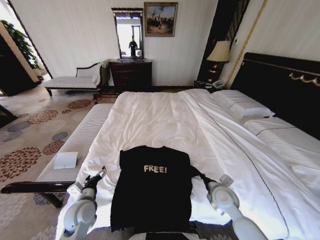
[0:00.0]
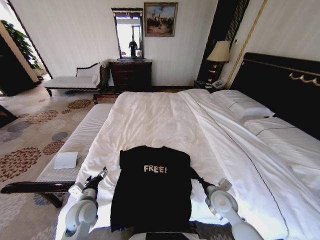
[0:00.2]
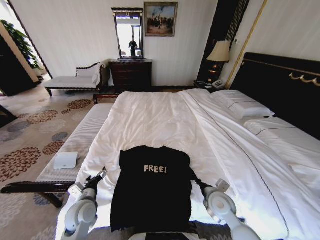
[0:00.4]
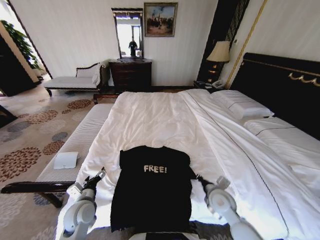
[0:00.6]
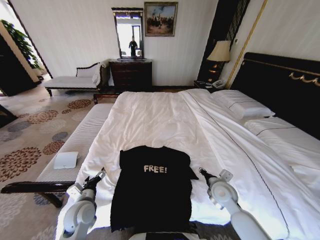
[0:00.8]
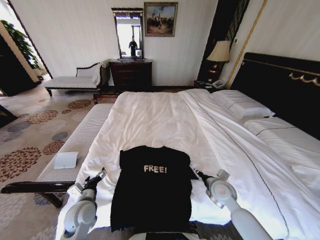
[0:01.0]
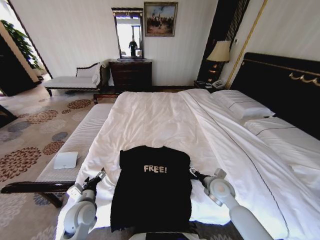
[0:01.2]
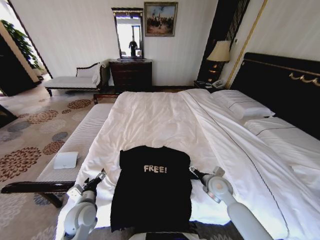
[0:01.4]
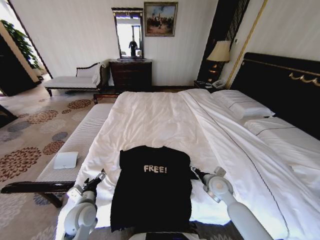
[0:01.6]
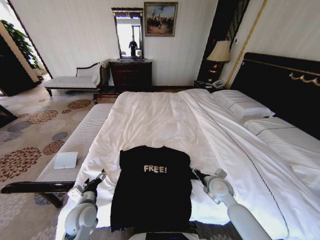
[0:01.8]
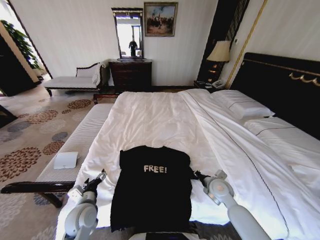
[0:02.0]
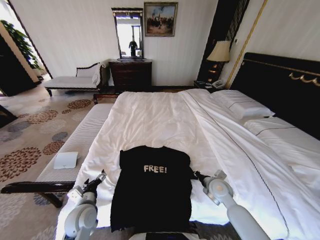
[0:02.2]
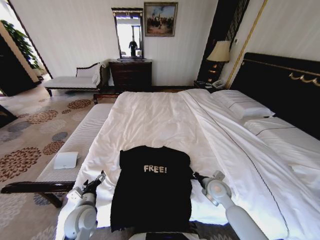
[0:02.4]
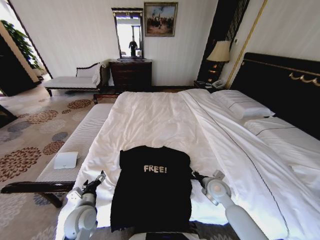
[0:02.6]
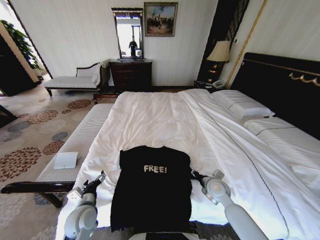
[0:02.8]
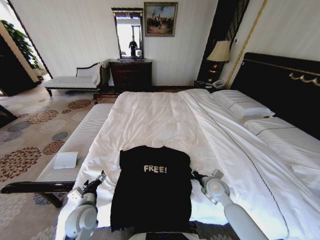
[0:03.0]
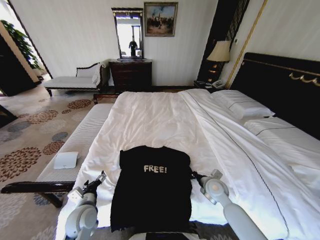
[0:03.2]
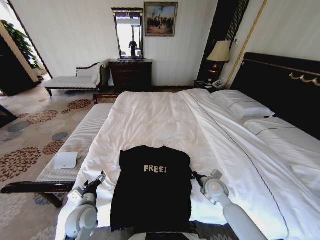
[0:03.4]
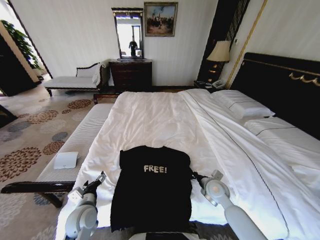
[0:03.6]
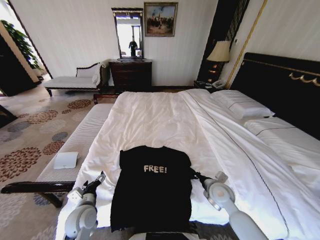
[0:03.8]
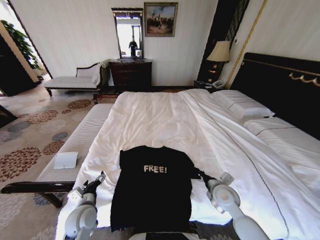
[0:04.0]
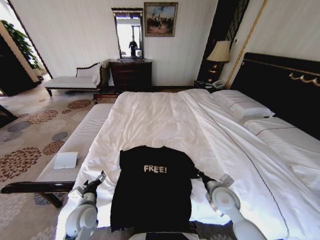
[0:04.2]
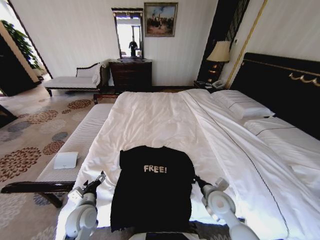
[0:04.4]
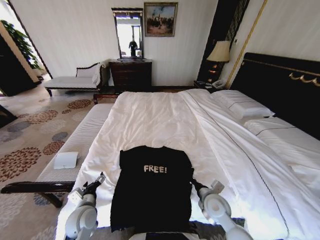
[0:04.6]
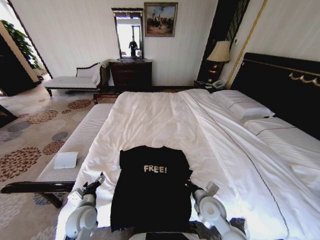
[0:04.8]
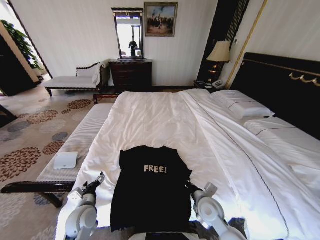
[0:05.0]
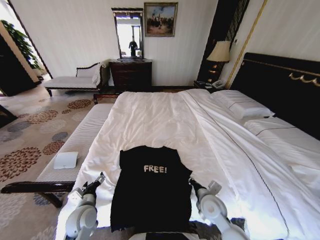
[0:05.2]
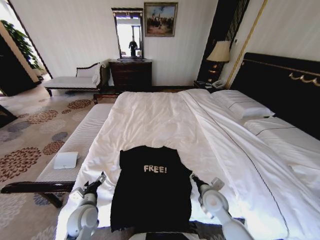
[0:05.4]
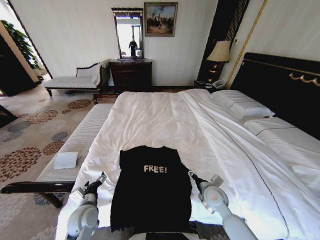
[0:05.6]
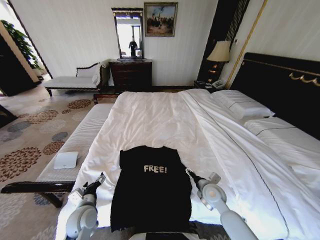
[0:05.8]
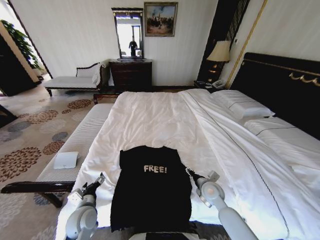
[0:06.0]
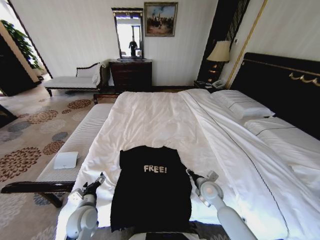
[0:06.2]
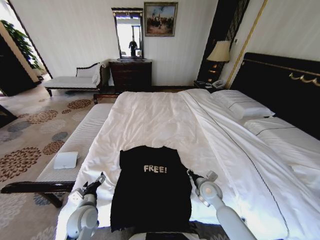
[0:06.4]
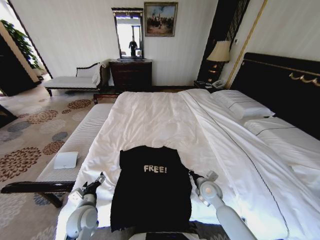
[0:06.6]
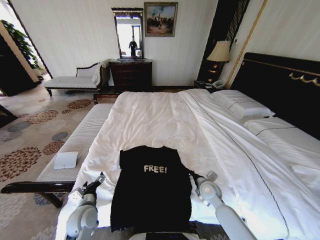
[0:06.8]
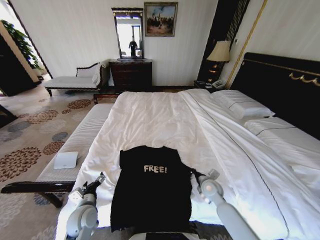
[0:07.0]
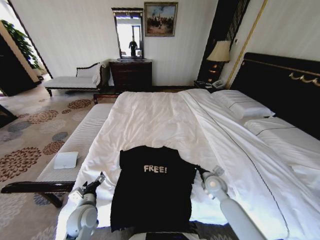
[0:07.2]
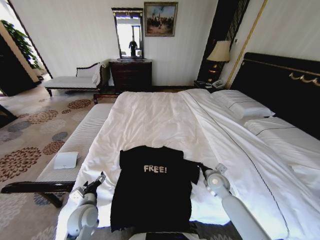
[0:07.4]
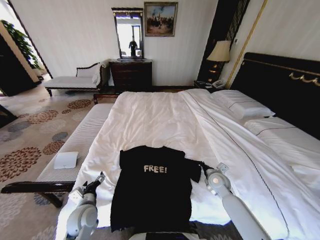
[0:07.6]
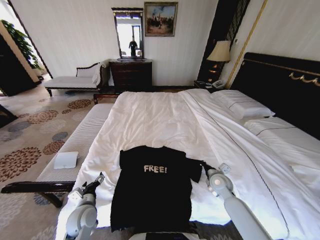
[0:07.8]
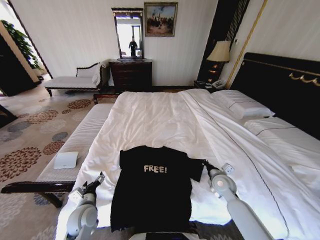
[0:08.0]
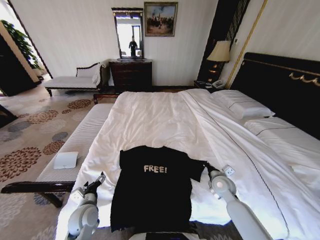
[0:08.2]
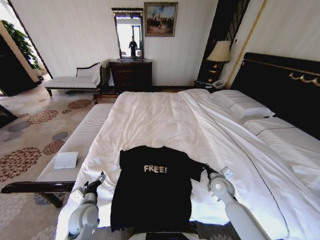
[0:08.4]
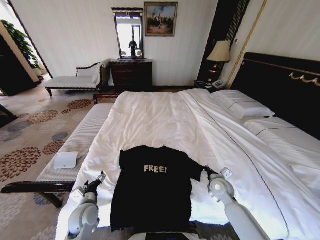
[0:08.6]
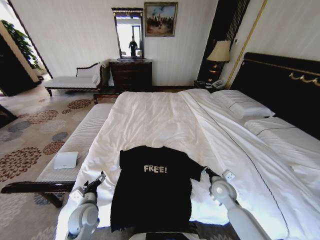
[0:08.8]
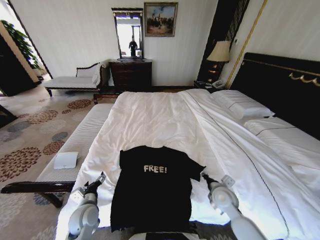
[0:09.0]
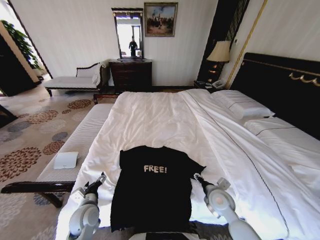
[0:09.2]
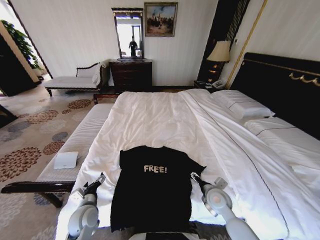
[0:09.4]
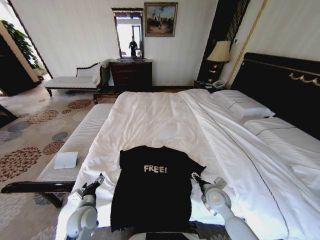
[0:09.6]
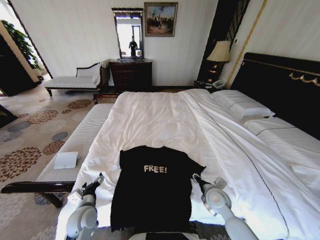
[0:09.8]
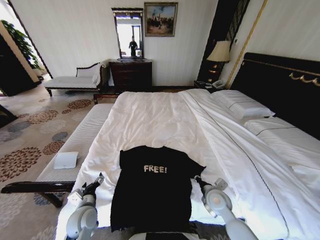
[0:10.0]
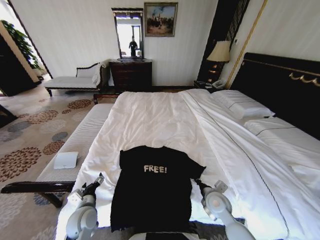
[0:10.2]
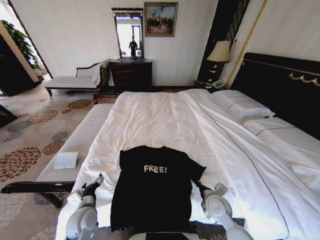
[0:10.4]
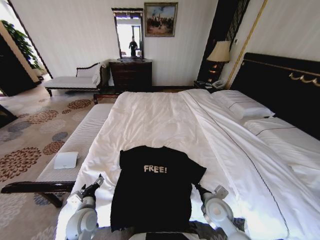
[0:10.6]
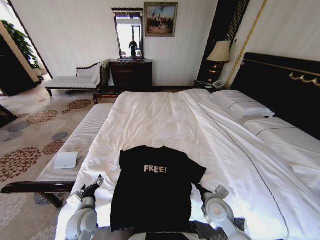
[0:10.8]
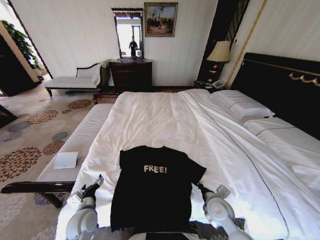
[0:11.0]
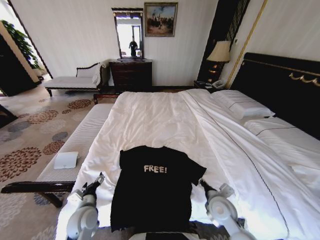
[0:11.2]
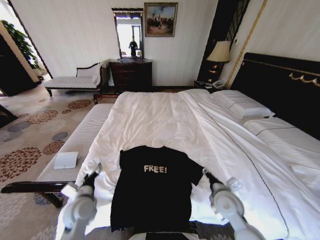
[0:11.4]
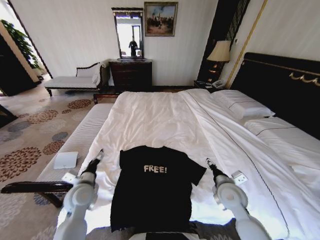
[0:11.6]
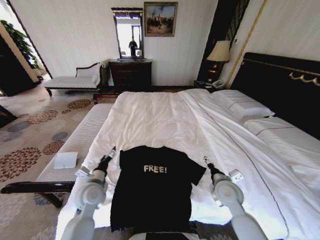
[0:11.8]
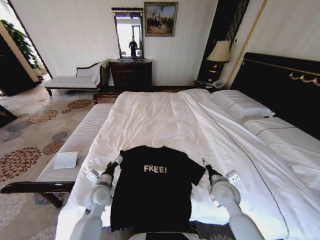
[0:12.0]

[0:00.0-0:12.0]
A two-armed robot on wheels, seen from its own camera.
Task of the whole recording: Fold the clothes on the bed.
0:00.0 to 0:01.6: The right gripper opens.
0:01.6 to 0:03.0: The right gripper closes.
0:03.0 to 0:04.4: The right gripper moves backward, approximately 5 cm.
0:04.4 to 0:06.0: The right gripper moves forward, approximately 5 cm, and opens.
0:06.0 to 0:07.6: The right gripper is displaced to the right by some 5 cm, and closes up.
0:07.6 to 0:09.0: The right gripper goes roughly 10 cm backward, and opens its fingers.
0:09.0 to 0:10.4: The right gripper closes.
0:10.4 to 0:12.0: The left gripper shifts about 10 cm forward. The right gripper is displaced upward by roughly 5 cm, and opens its fingers.

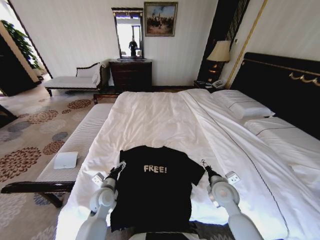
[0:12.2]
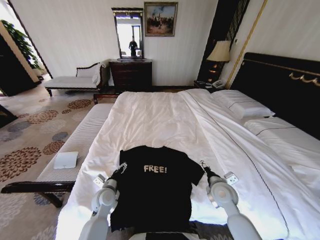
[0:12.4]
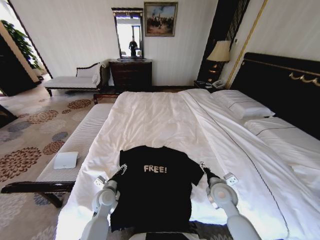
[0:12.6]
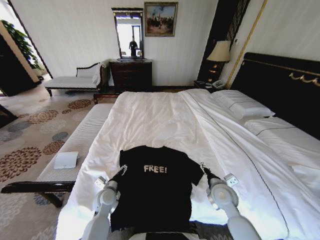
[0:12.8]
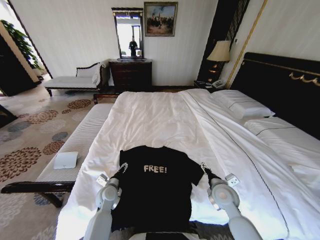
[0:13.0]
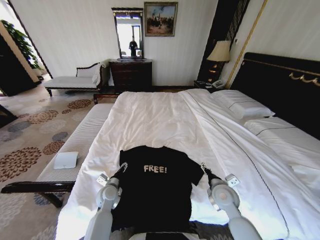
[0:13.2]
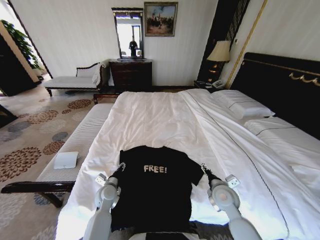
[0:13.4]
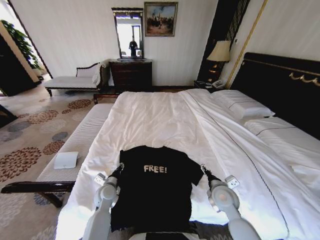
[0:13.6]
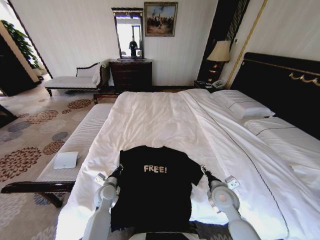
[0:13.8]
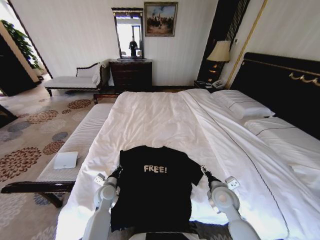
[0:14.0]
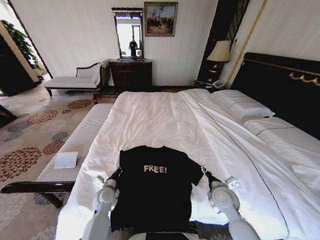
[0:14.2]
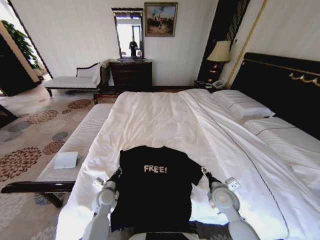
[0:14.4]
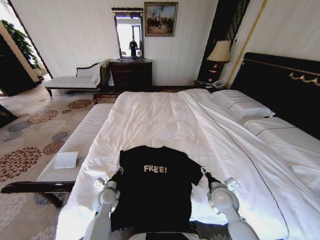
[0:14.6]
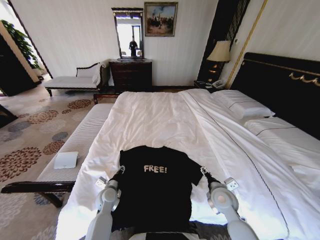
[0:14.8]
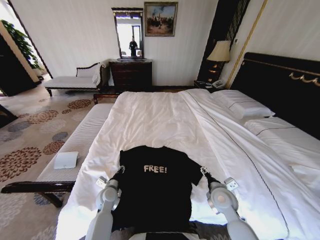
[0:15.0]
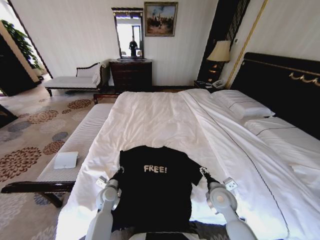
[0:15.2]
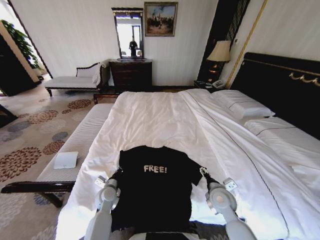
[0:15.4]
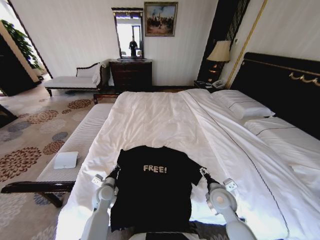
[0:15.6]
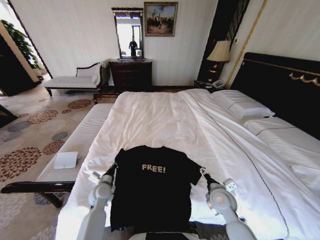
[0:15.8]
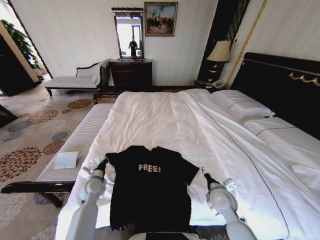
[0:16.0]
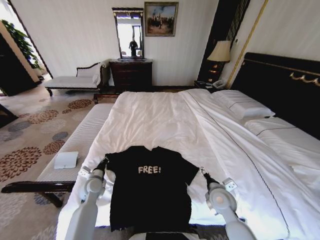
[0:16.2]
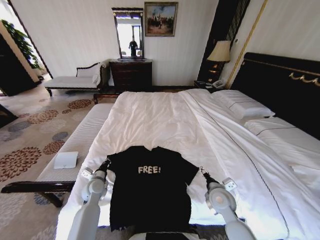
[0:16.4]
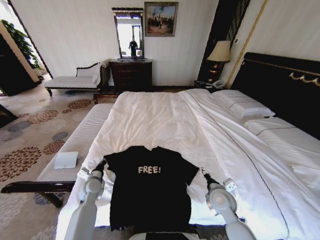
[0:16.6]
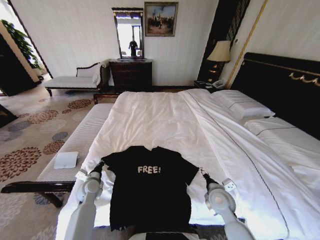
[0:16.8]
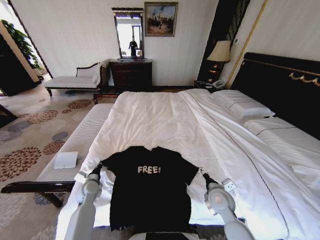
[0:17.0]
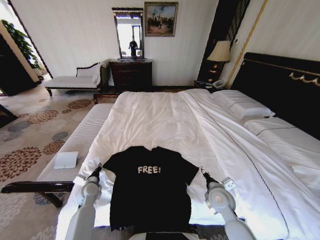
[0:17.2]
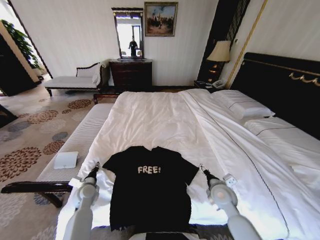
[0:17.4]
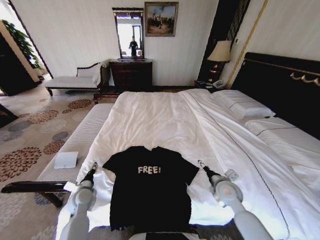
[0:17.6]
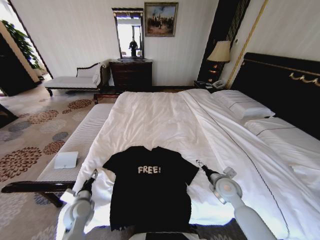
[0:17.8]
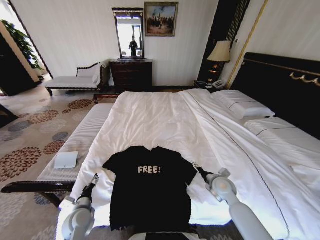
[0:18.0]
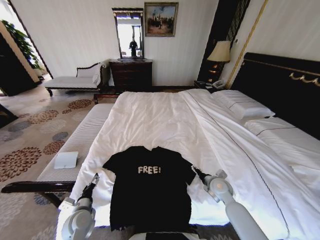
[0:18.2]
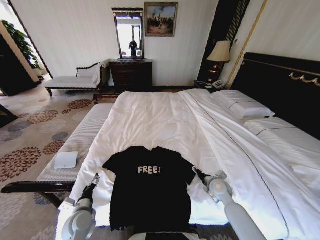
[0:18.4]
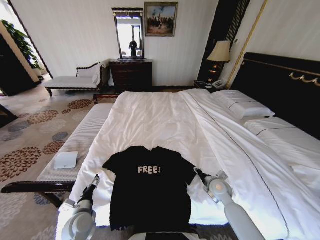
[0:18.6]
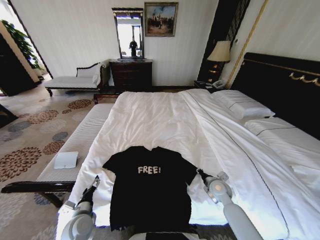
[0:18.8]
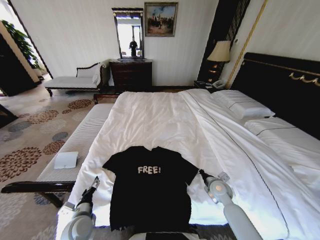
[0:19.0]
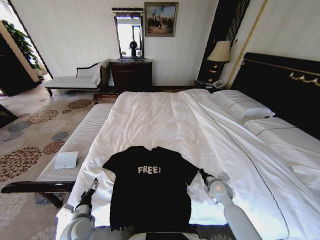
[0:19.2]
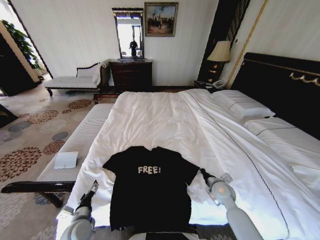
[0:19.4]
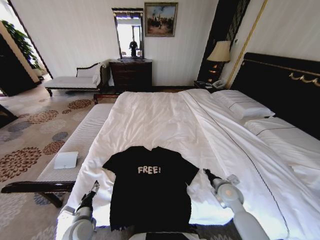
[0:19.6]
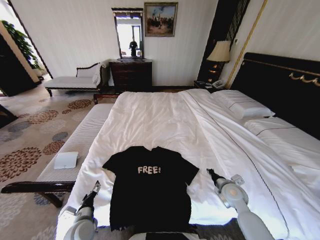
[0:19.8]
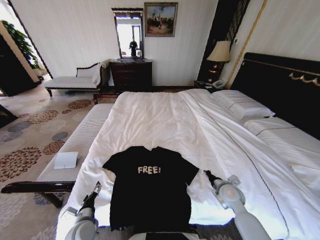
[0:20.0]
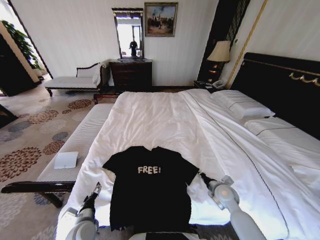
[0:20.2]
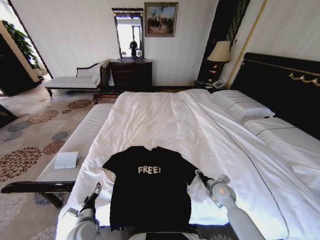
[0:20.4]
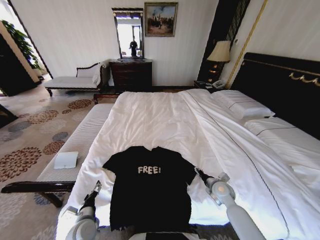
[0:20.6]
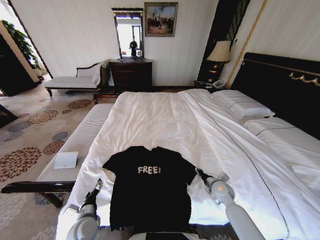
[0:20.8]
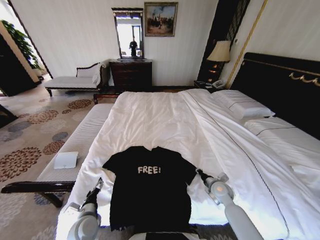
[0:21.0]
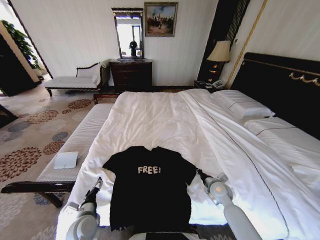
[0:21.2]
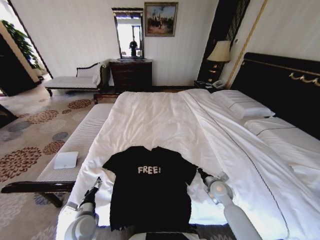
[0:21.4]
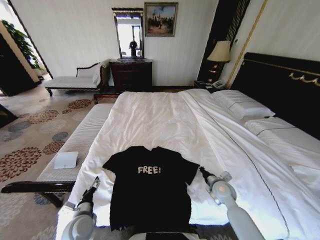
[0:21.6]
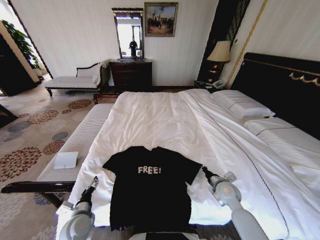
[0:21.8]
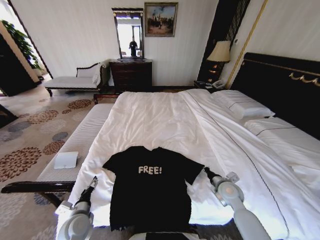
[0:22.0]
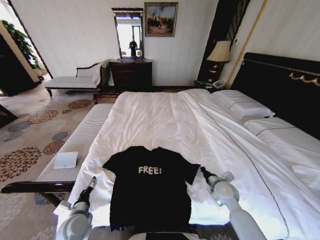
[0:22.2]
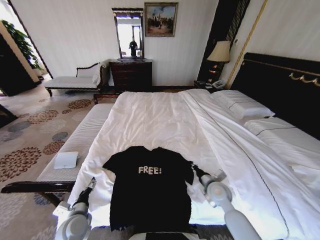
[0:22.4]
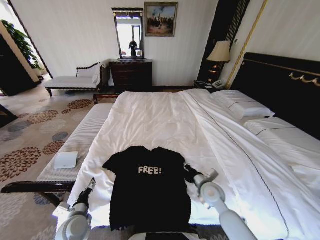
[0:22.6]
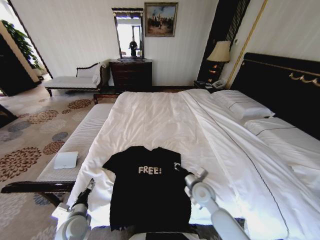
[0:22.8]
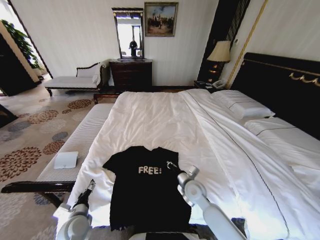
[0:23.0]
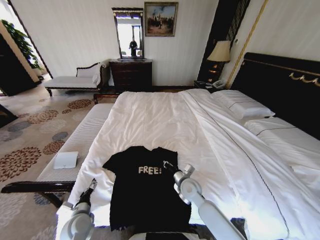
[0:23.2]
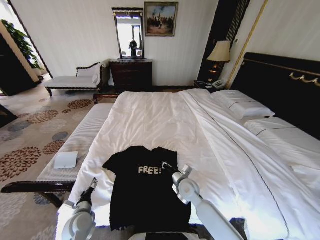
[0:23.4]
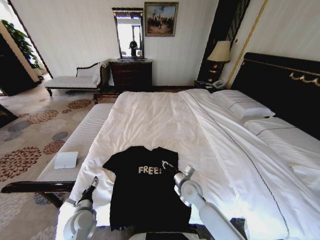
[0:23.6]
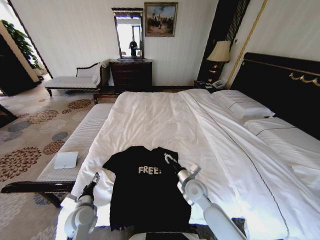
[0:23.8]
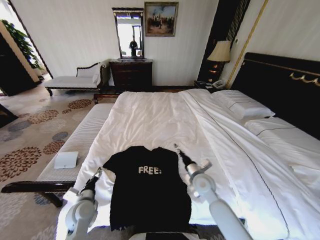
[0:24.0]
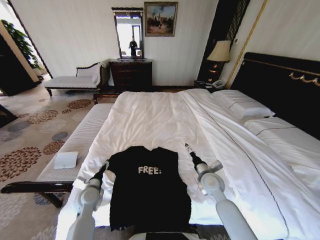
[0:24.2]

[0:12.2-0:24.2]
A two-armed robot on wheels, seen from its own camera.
Task of the whole recording: Fold the clothes on the bed.
0:12.2 to 0:13.8: The left gripper closes up.
0:13.8 to 0:15.2: There are only small adjustments of the grippers.
0:15.2 to 0:16.6: The left gripper shifts some 10 cm to the left.
0:16.6 to 0:18.2: The right gripper is displaced forward by approximately 5 cm, while the left gripper is displaced backward by some 15 cm, and opens.
0:18.2 to 0:19.8: The right gripper ends up about 5 cm from where it was, and closes up.
0:19.8 to 0:21.2: The right gripper ends up about 5 cm from where it was, and opens and closes again.
0:21.2 to 0:22.6: The right gripper heads to the left and upward, covering roughly 10 cm.
0:22.6 to 0:24.2: The right gripper travels to the left and back again, approximately 10 cm each way, and opens up. The left gripper travels forward by about 10 cm.
